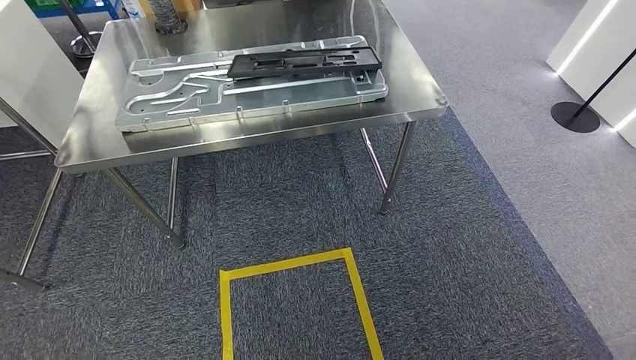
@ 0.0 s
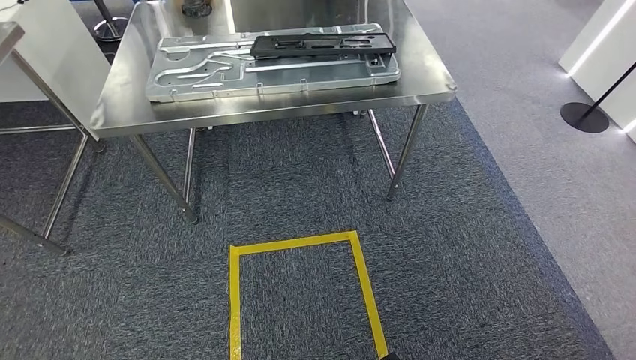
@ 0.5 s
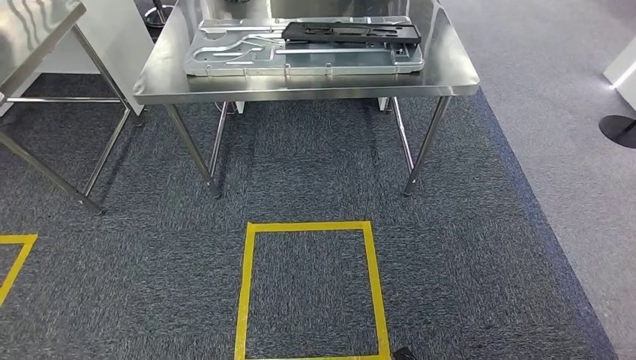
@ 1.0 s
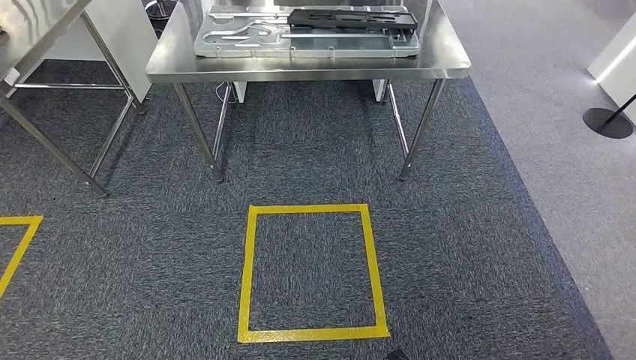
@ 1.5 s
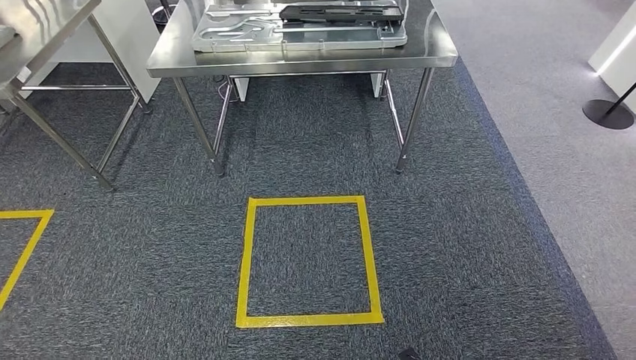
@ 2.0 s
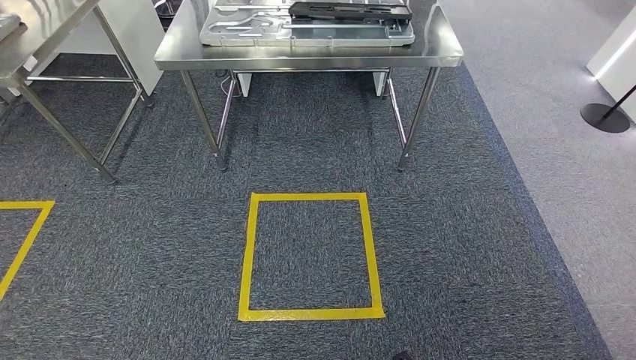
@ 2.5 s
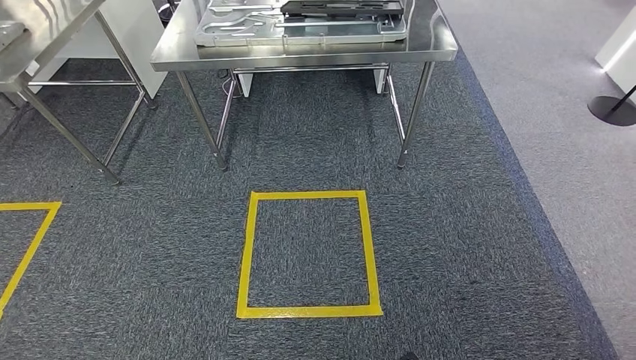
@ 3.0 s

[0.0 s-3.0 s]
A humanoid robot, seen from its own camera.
Step, 1.0 to 3.0 s: Move to the initial position of the shelf.
1.5 to 3.0 s: There are only small adjustments of the hands.
